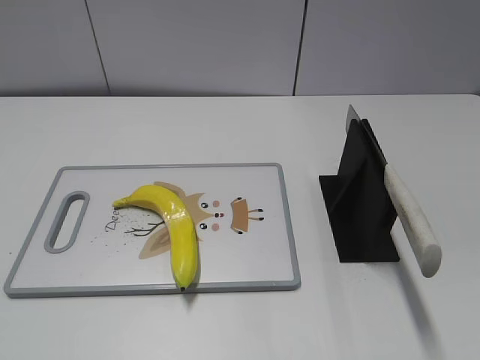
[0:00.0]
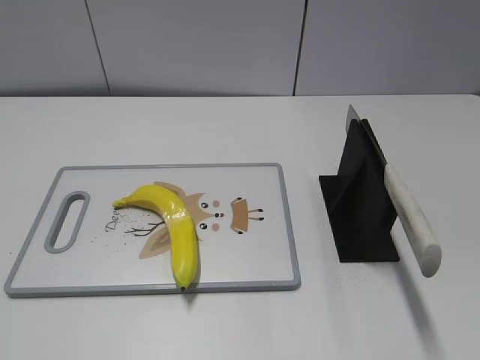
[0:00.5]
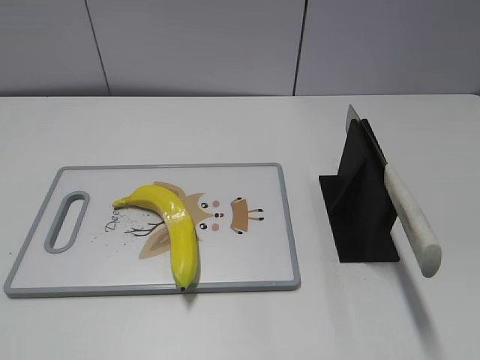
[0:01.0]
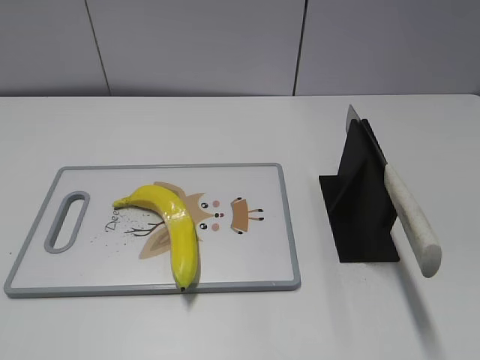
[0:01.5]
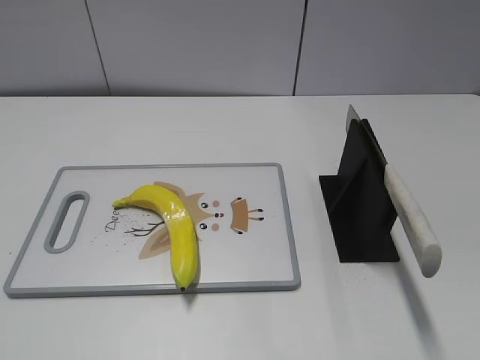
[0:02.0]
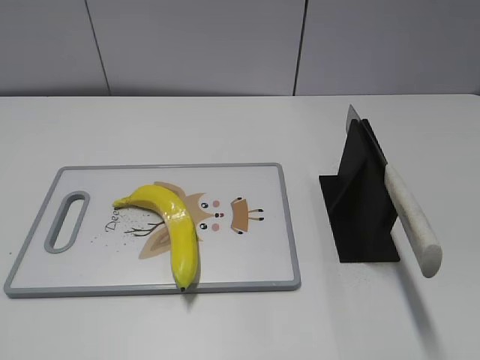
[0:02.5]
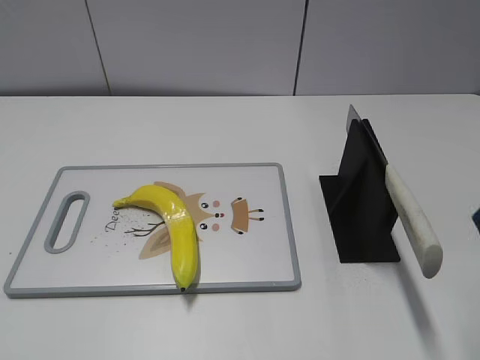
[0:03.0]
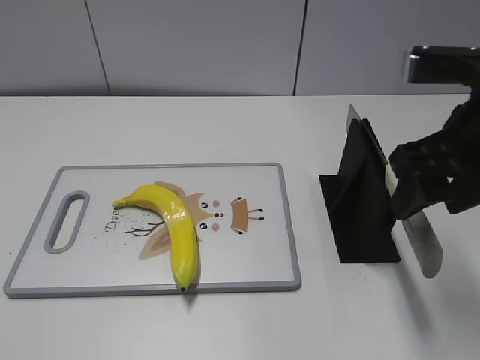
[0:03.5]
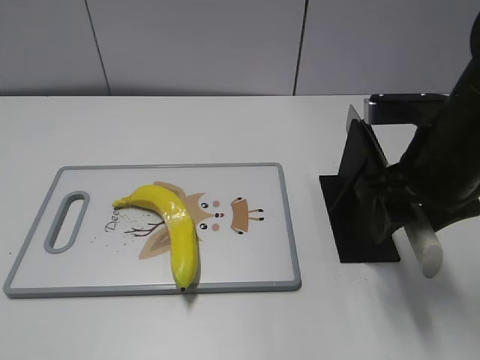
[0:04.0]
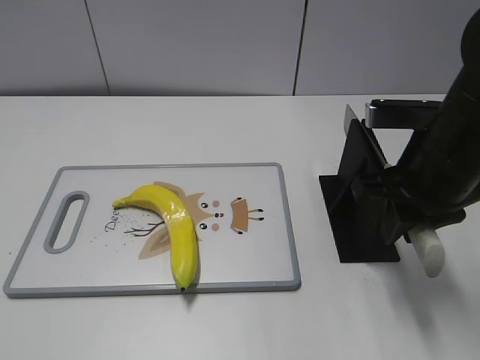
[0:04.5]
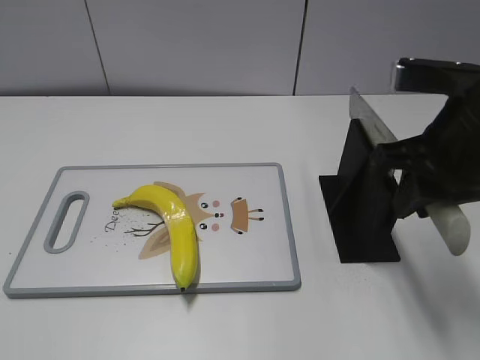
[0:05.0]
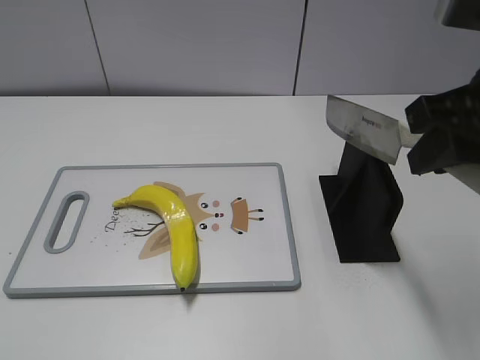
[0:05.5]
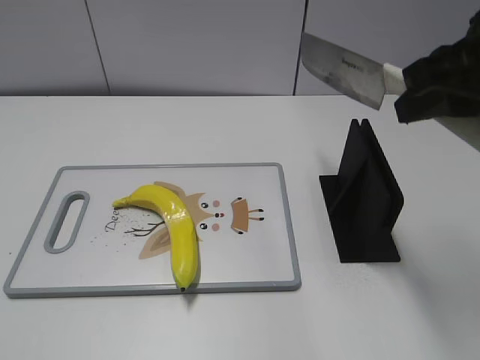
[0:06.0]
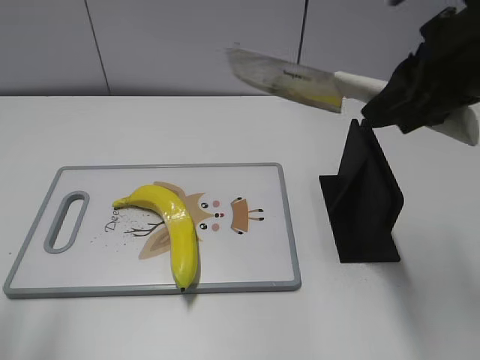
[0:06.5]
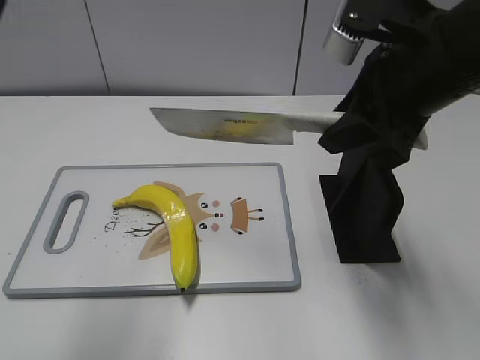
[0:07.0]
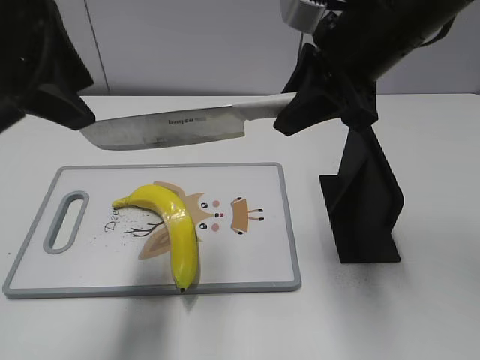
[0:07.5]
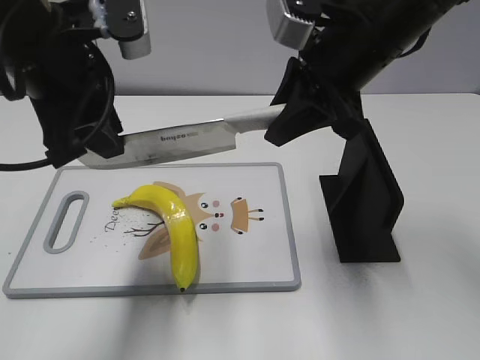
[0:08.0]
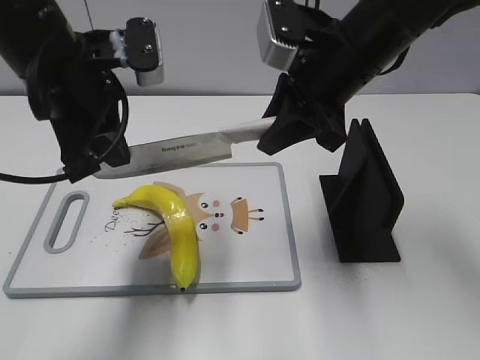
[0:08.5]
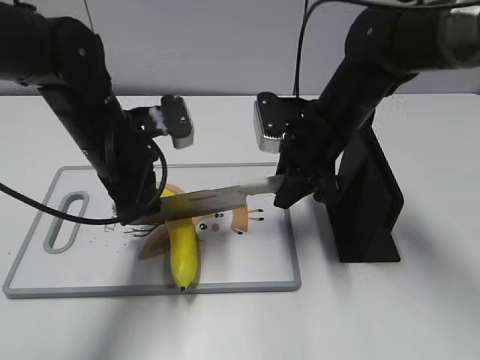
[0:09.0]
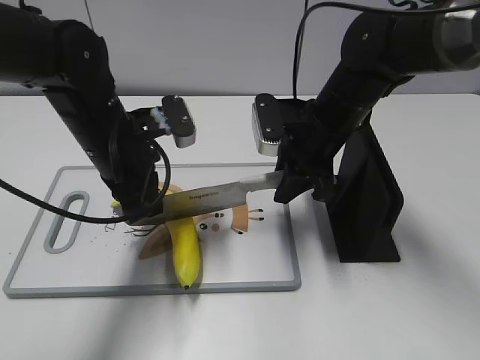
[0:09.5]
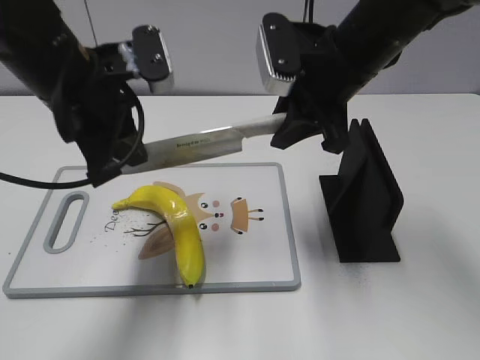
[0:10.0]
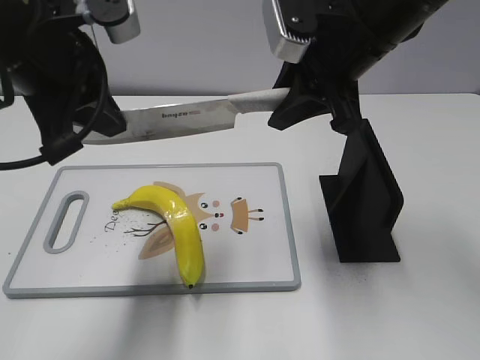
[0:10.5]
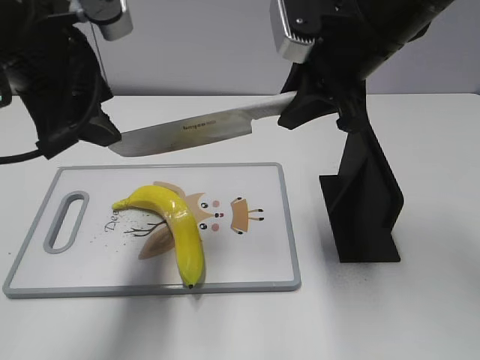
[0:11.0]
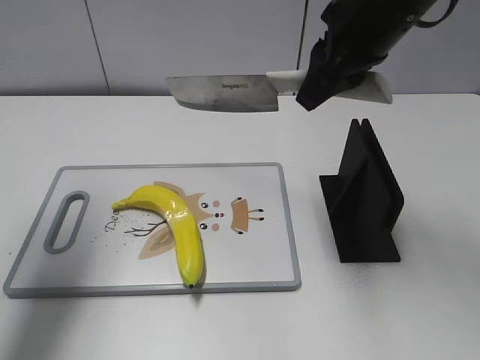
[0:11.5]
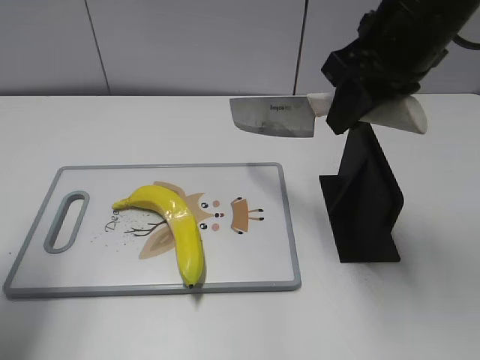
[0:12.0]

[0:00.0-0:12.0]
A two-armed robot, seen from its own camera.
Task of the whole recording: cut plastic banana.
Step, 0:00.0 to 0:05.0: Grab the knife handle with your right hand.
Step, 0:05.5 to 0:10.0: Lift the knife with your right hand.
Step, 0:10.5 to 0:11.5: Cut the banana with your right hand.
0:02.0 to 0:04.0: The right gripper travels forward and to the left by about 25 cm.
0:04.0 to 0:06.0: The right gripper heads upward, covering approximately 10 cm, and closes.
0:06.0 to 0:08.0: The left gripper travels forward and to the right by about 30 cm, while the right gripper heads forward and to the left, covering approximately 10 cm.
0:08.0 to 0:10.0: The right gripper moves some 15 cm downward and comes back; the left gripper closes its fingers.
0:10.0 to 0:12.0: The right gripper moves upward, approximately 5 cm. The left gripper is displaced to the left and upward by some 20 cm, and opens up.

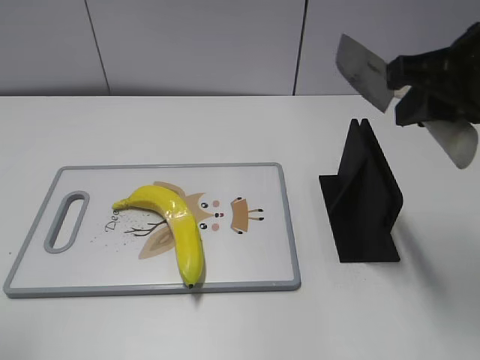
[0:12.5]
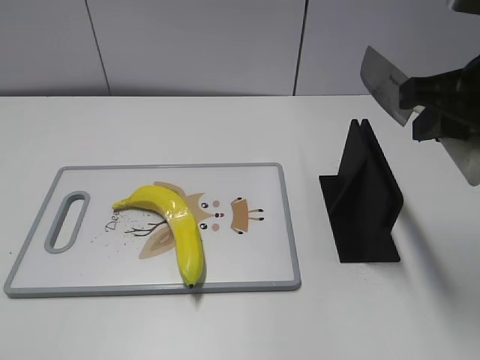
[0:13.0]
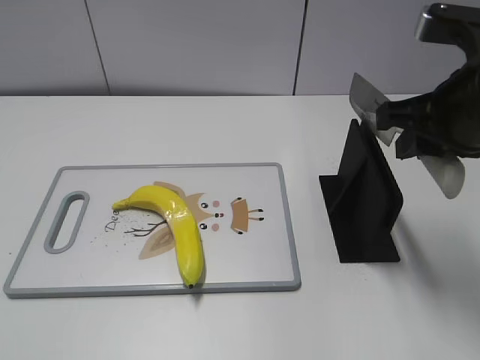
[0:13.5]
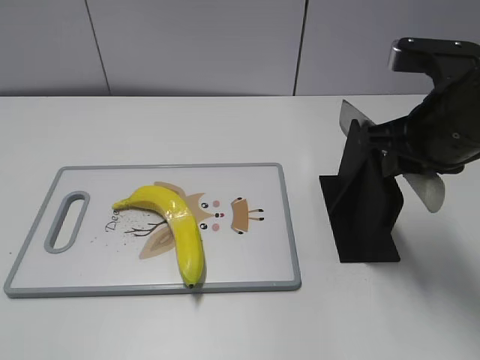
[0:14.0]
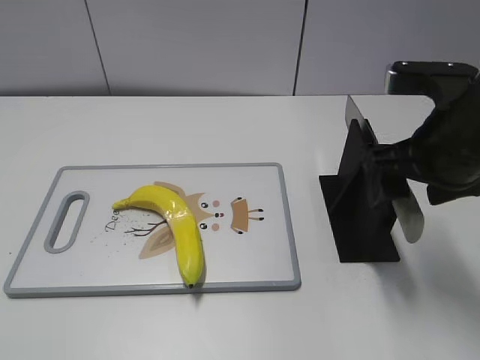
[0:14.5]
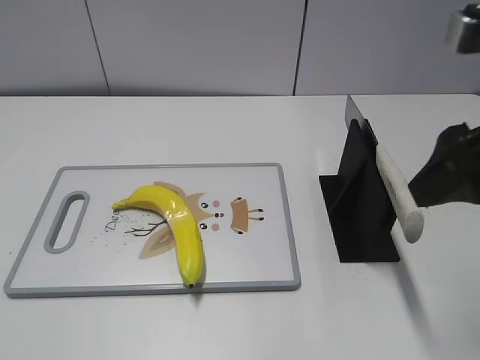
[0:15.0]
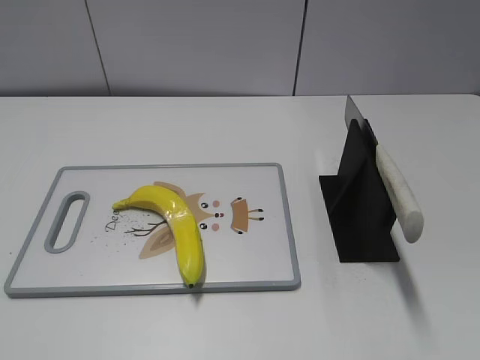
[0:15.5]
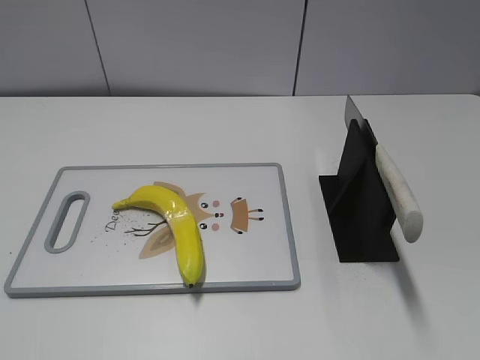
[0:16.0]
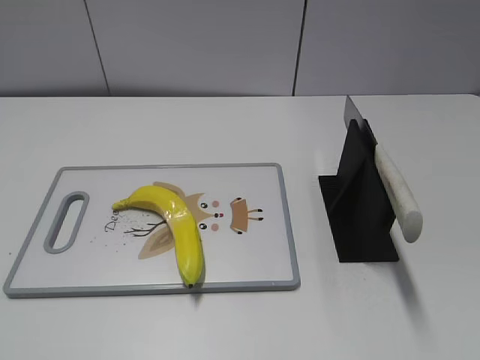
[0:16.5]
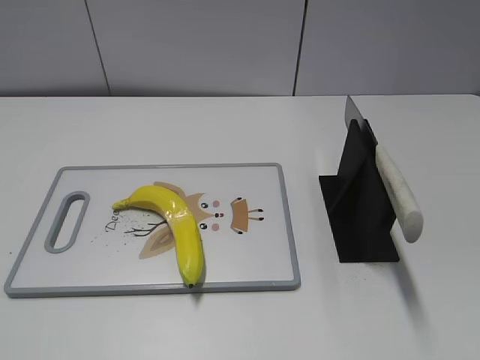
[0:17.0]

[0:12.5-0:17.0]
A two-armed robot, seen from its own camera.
Task of the whole recording: cut plastic banana.
Step, 0:12.5 to 0:13.0: Lift the knife with your right hand.
Step, 0:13.5 to 0:17.0: Place the knife on the storage rack with your right hand.
0:12.5 to 0:14.5: The right gripper is displaced downward by some 10 cm, and opens its fingers.
0:14.5 to 0:17.0: The right gripper travels backward by about 25 cm.
